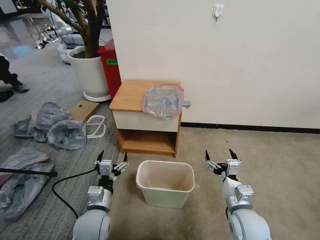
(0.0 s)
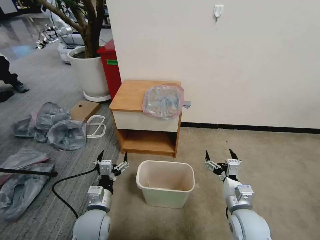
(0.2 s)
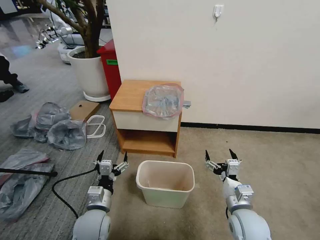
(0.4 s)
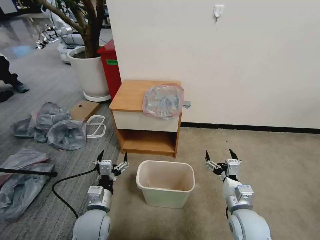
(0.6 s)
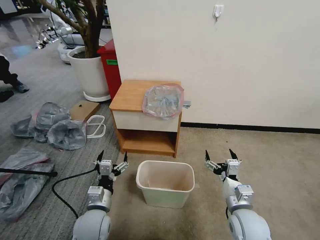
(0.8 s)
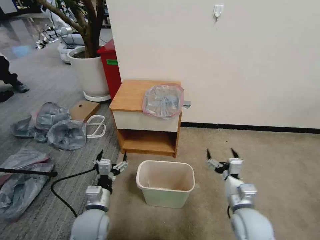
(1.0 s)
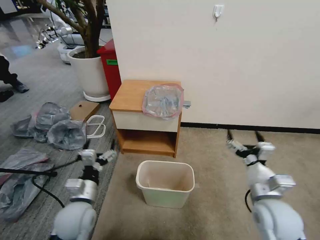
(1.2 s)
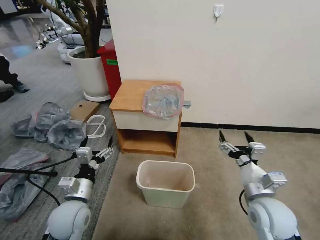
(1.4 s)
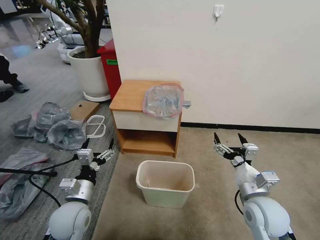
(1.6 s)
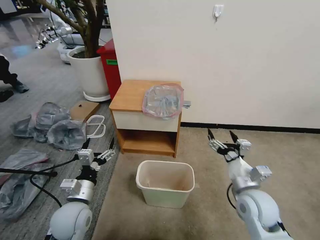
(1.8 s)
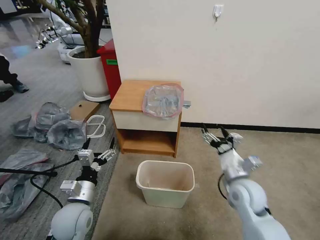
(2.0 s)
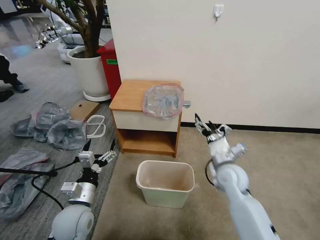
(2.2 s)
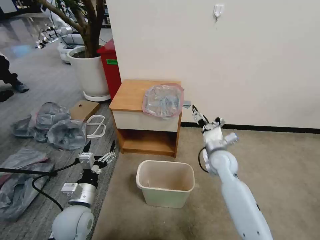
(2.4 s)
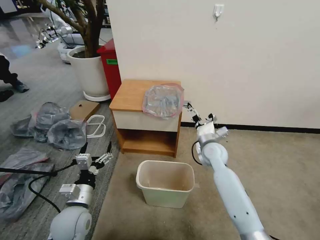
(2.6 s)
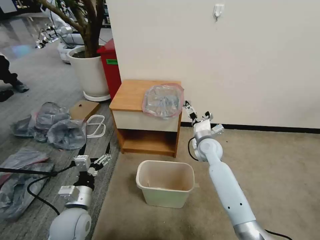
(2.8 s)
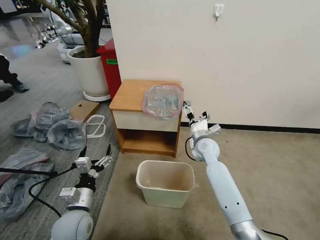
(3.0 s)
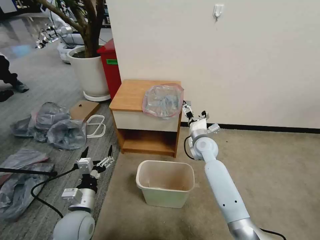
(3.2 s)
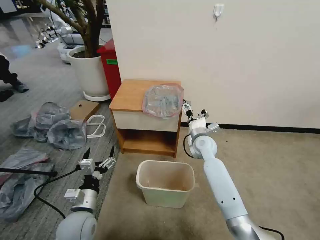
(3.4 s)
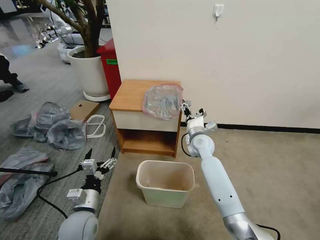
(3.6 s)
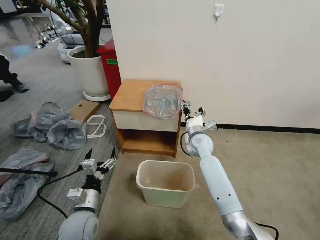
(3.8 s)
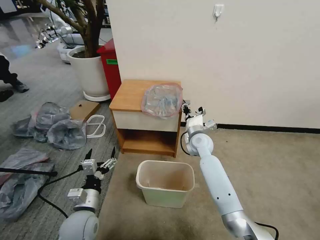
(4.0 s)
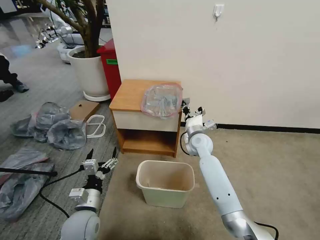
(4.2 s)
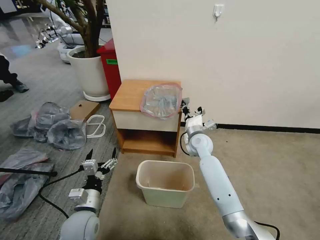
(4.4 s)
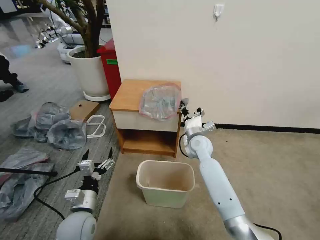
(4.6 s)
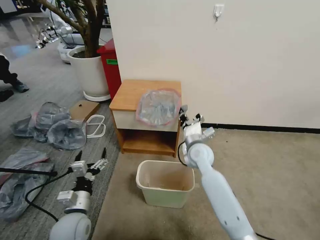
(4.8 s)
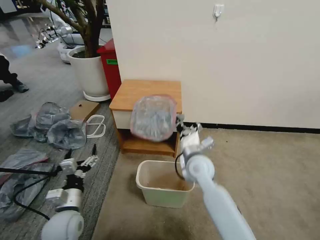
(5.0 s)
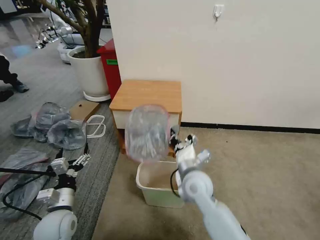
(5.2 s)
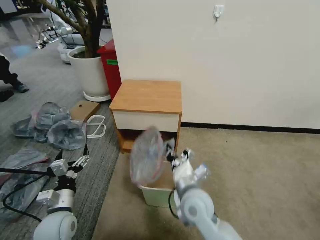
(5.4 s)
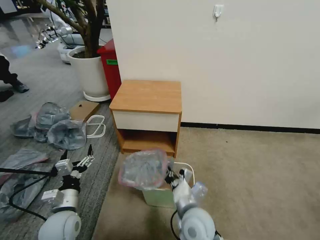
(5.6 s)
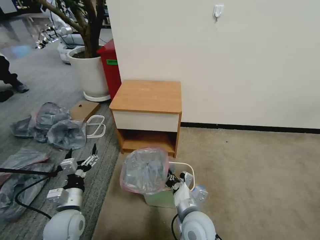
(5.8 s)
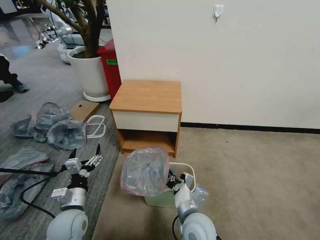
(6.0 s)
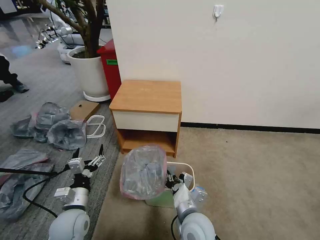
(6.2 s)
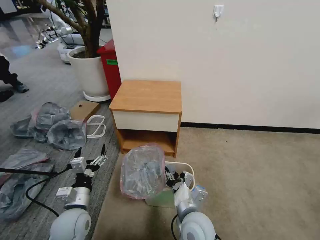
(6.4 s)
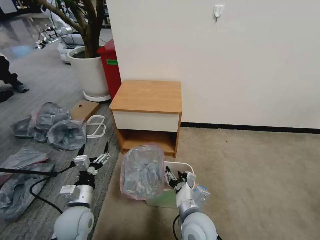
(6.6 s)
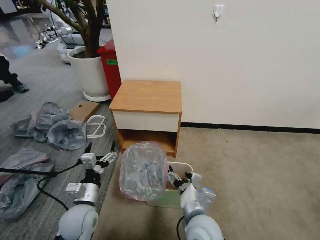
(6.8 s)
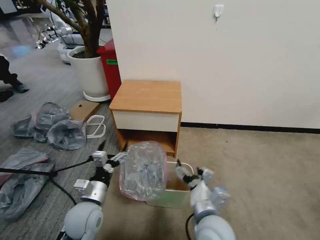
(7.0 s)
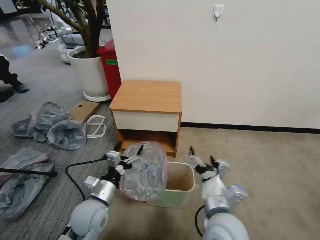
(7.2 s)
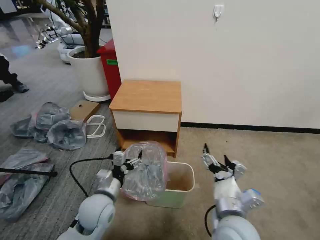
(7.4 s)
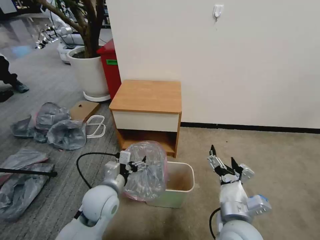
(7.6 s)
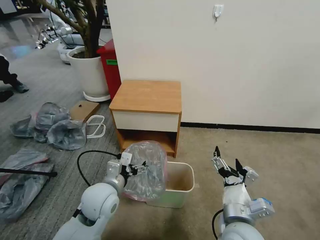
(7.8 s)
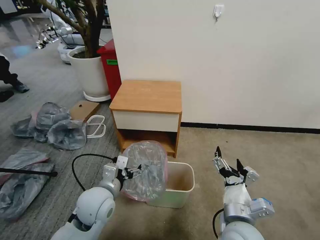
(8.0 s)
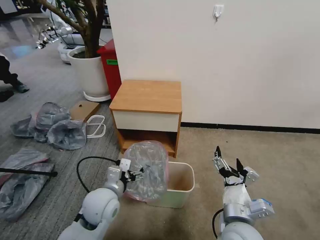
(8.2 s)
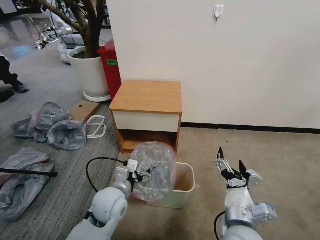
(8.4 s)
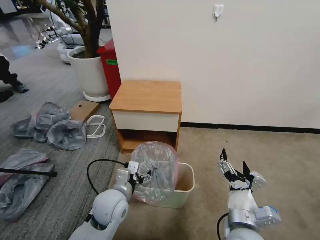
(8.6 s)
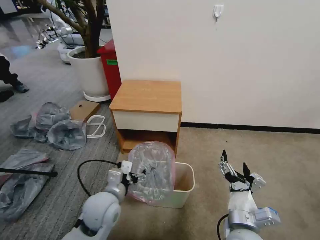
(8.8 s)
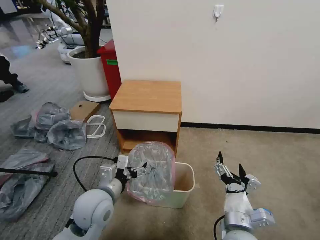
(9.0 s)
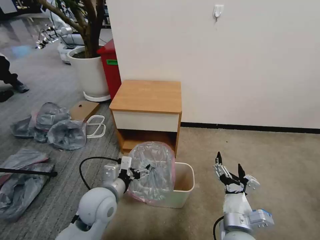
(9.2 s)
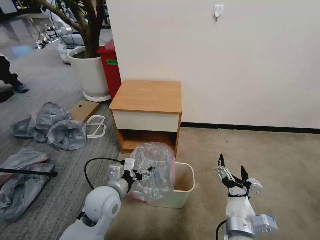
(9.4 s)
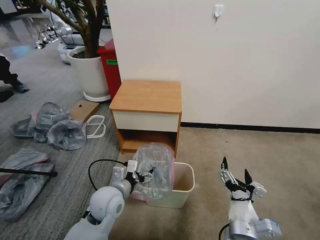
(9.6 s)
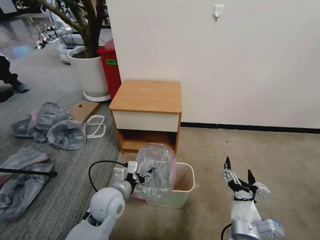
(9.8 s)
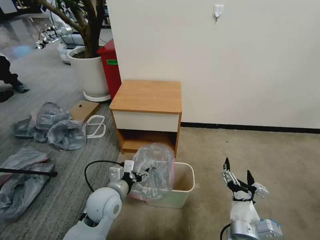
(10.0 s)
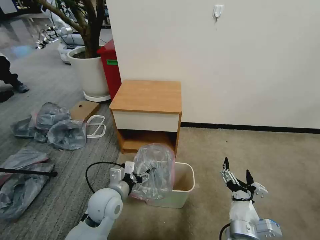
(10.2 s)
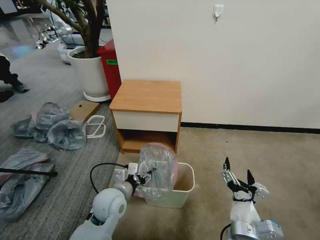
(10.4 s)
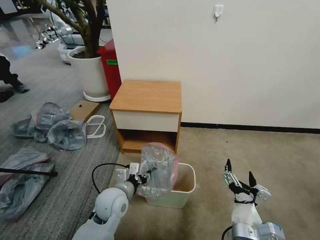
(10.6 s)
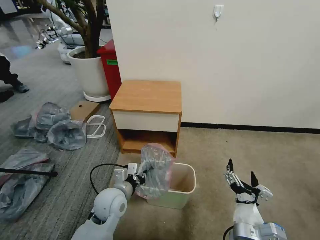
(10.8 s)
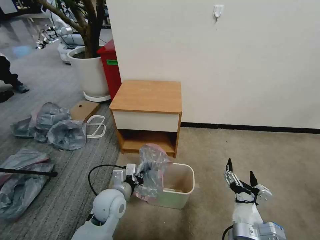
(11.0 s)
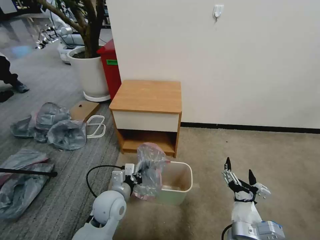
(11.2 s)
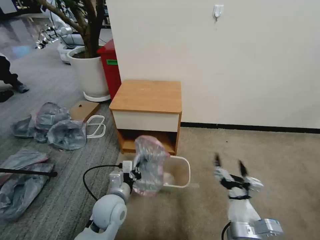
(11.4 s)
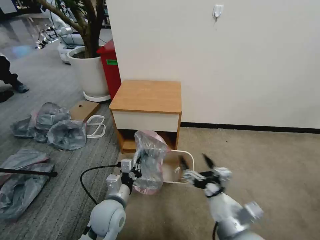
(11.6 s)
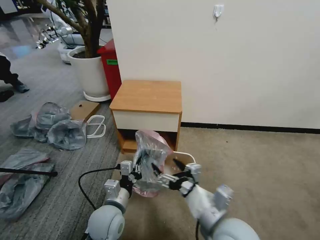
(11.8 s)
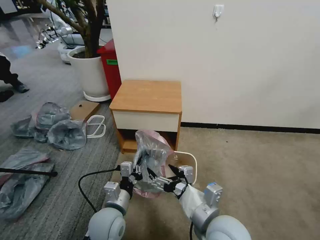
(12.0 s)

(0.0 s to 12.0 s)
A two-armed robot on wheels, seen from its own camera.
Task of the whole recording: Pick up the garbage bag from the table and place it over the trash can.
1.6 s - 3.0 s: The right gripper heads forward and to the left, covering some 25 cm.
3.0 s - 4.4 s: The right gripper closes up.
4.4 s - 6.0 s: The right gripper moves backward, some 30 cm.
6.0 s - 7.6 s: The two grippers go approximately 10 cm to the right and upward. The right gripper opens its fingers.
7.6 s - 9.0 s: The grippers make only small movements.
9.0 s - 10.4 s: The left gripper goes roughly 5 cm downward.
10.4 s - 12.0 s: The right gripper travels upward and to the left by about 10 cm. Meanwhile the left gripper shifts approximately 5 cm backward, and closes up.

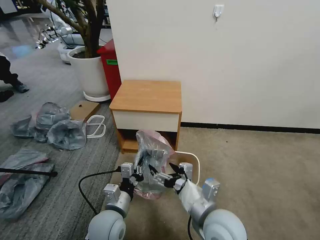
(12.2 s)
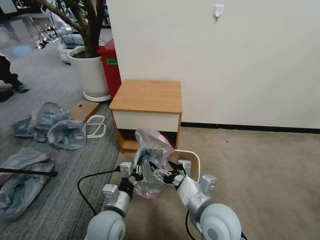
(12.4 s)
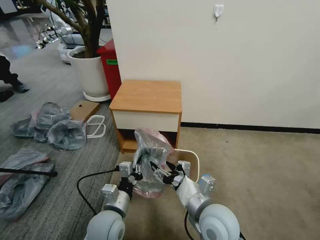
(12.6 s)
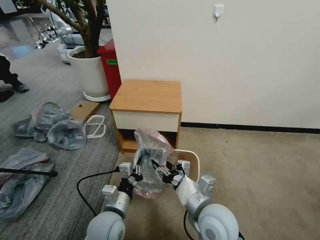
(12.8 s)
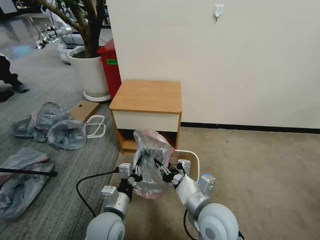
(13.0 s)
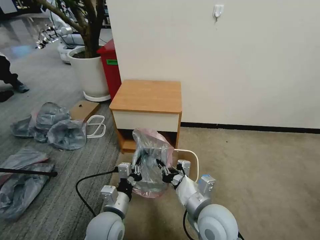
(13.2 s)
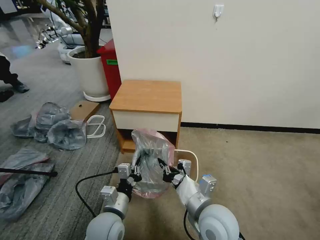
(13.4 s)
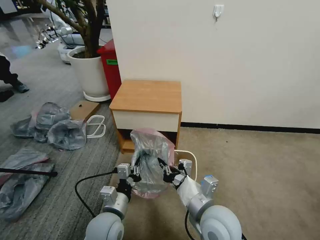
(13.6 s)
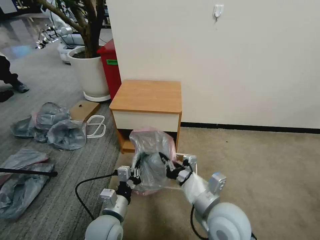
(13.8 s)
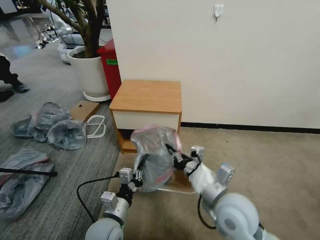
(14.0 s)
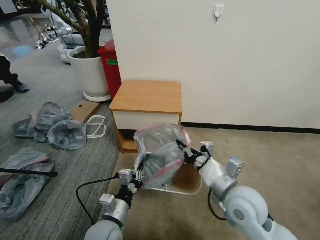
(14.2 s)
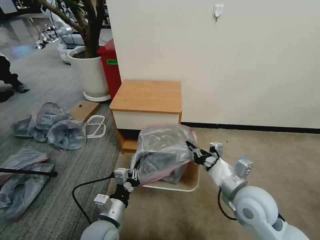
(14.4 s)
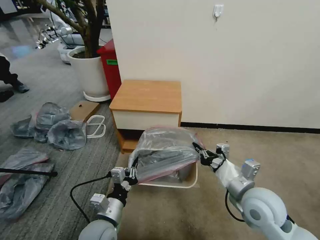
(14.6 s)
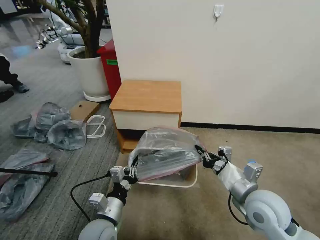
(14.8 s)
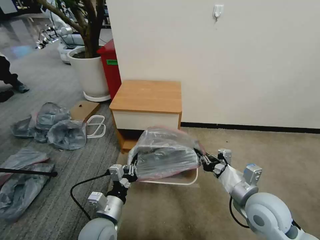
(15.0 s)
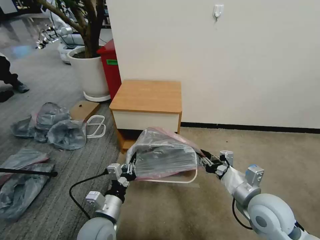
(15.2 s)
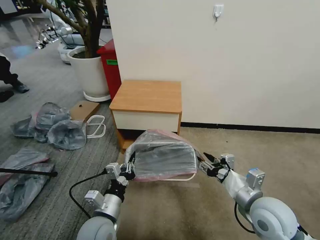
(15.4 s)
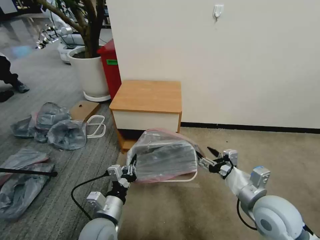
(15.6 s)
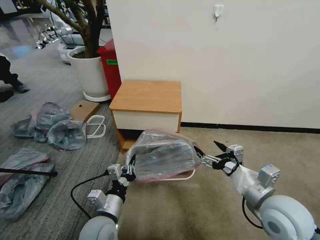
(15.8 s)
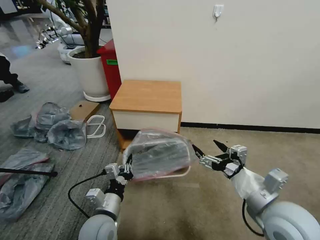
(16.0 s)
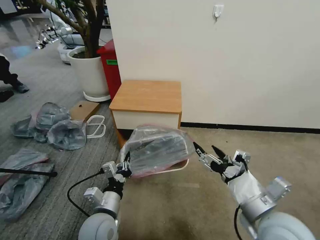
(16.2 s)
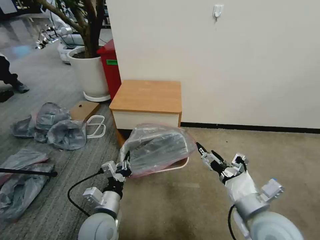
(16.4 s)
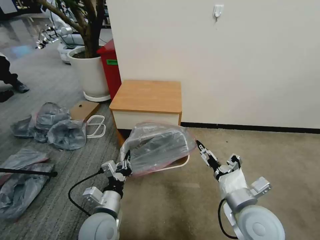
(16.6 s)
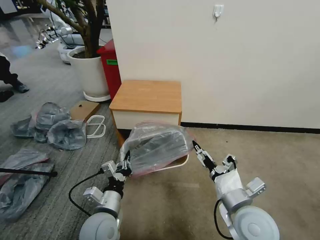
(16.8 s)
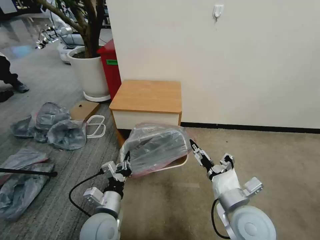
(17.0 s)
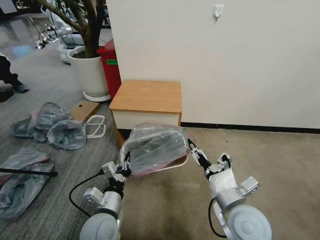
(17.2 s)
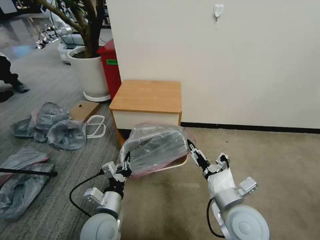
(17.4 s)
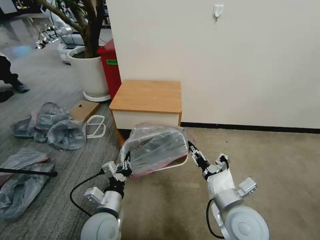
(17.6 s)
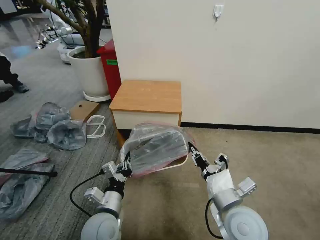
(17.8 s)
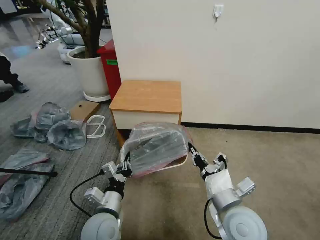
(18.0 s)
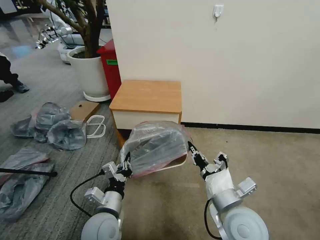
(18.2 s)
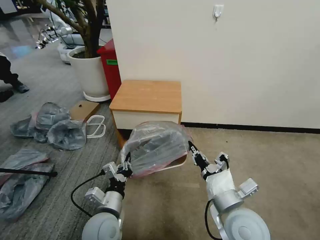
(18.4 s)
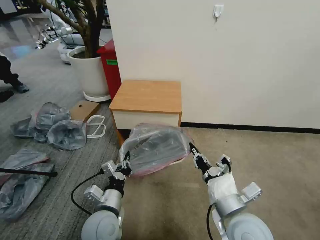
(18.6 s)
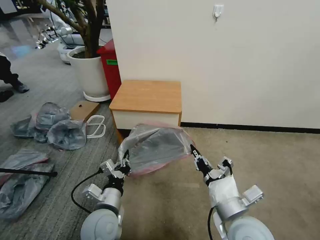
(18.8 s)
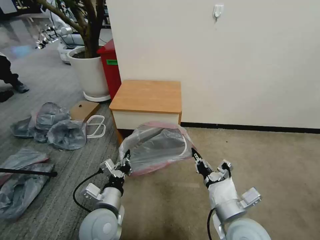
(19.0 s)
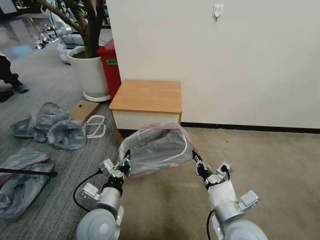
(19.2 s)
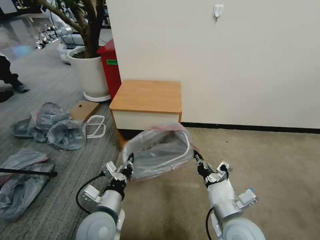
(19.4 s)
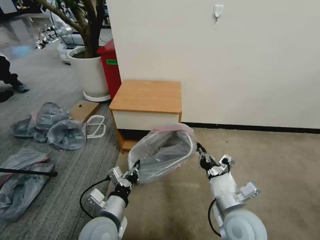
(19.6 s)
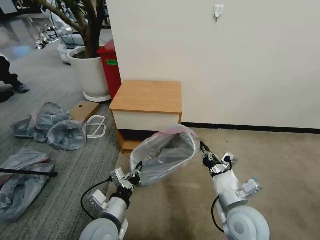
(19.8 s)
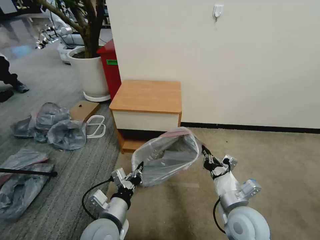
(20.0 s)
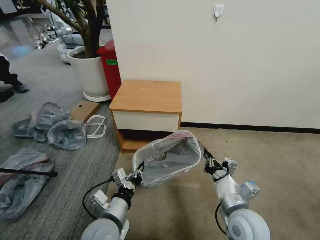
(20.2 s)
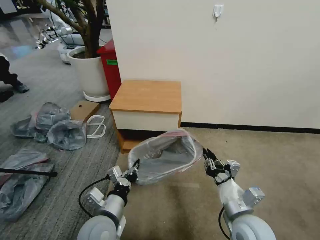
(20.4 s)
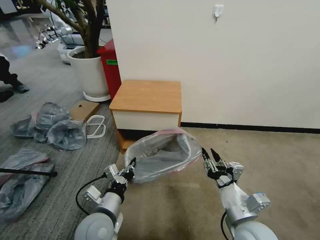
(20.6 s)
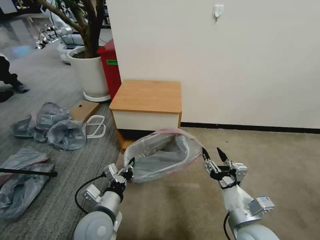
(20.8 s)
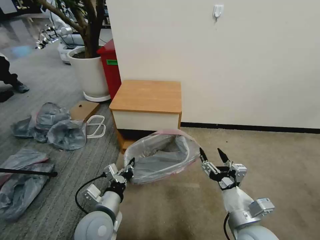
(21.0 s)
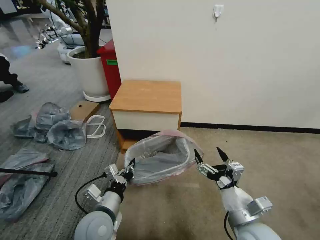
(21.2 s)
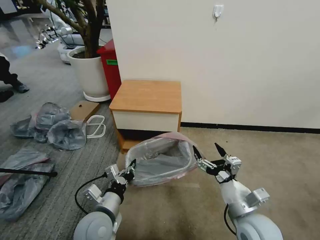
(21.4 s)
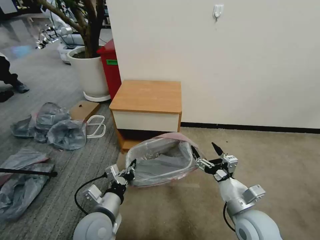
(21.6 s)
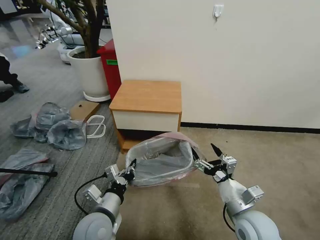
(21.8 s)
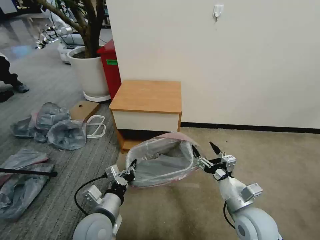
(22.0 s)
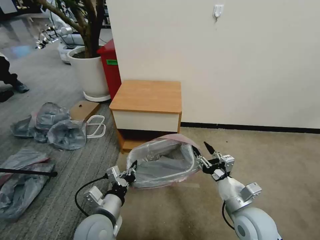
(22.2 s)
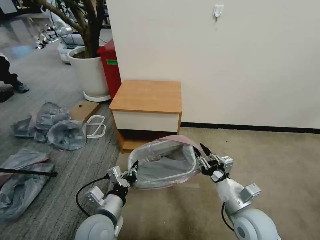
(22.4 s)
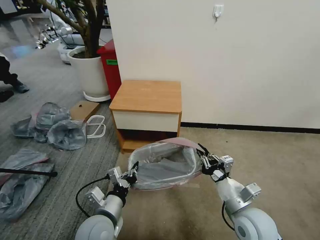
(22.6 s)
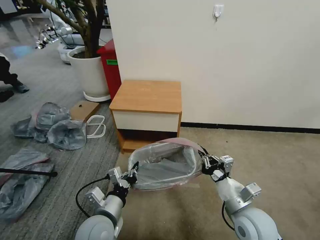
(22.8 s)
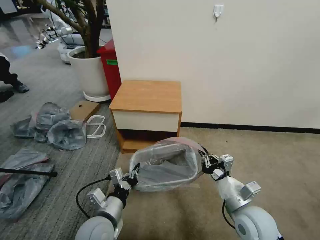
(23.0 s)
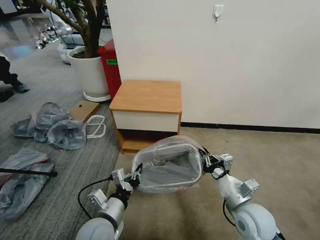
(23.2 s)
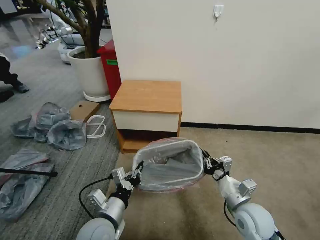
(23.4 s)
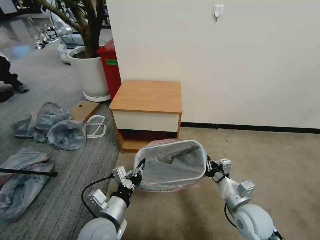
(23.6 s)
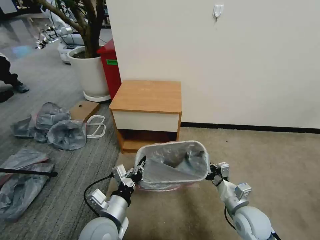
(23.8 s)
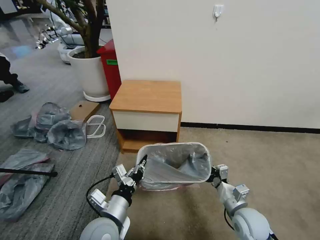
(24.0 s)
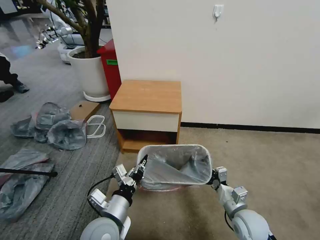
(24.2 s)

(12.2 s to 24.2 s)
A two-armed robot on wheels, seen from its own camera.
Task of the whole recording: Pick up the garbage bag from the table and place it over the trash can.
12.2 s - 13.8 s: The right gripper closes its fingers.
13.8 s - 15.2 s: The right gripper travels to the right by approximately 10 cm.
15.2 s - 16.6 s: The right gripper opens up.
16.6 s - 18.2 s: The right gripper closes up.
18.2 s - 19.8 s: The grippers stay close to where they were, moving slightly.
19.8 s - 21.2 s: The right gripper opens its fingers.
21.2 s - 22.6 s: The right gripper closes.
22.6 s - 24.2 s: The right gripper heads downward, covering about 10 cm.
